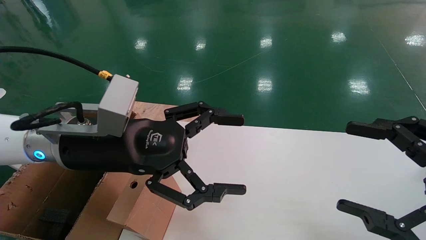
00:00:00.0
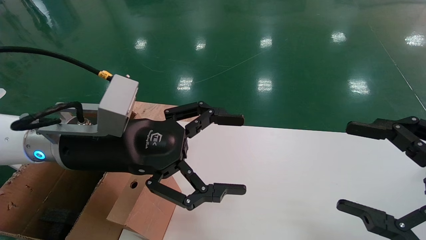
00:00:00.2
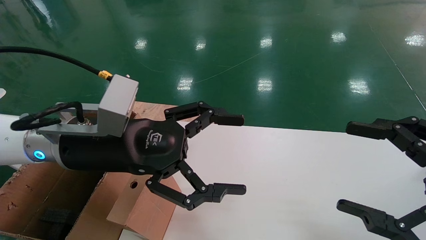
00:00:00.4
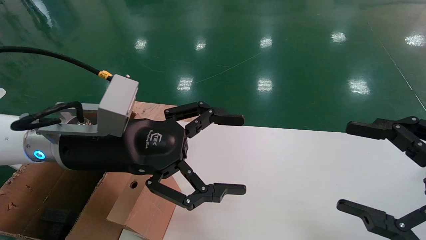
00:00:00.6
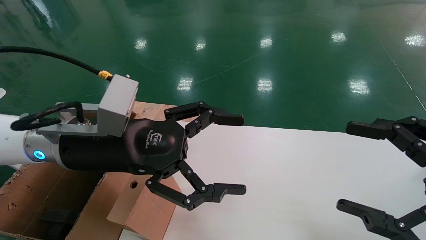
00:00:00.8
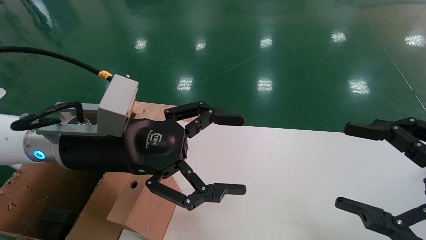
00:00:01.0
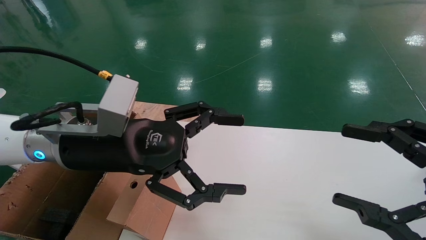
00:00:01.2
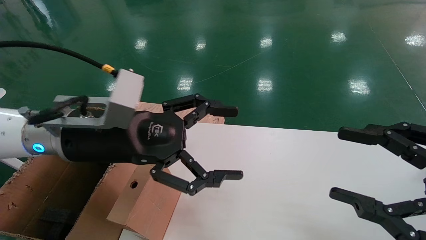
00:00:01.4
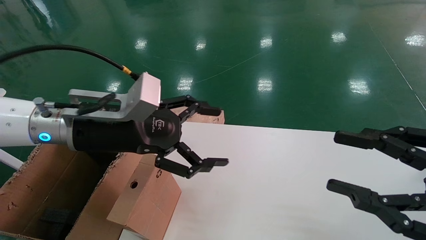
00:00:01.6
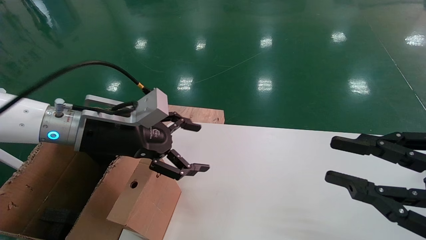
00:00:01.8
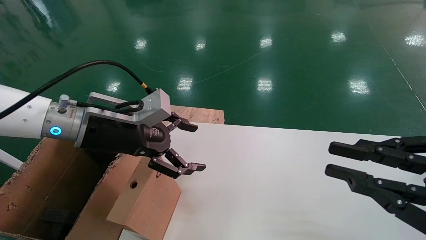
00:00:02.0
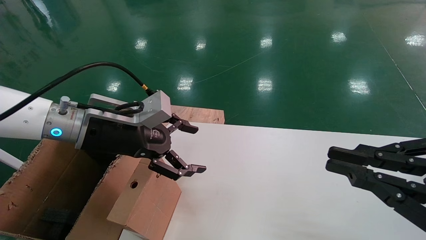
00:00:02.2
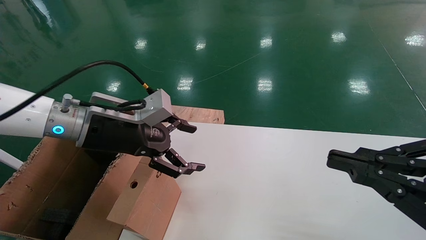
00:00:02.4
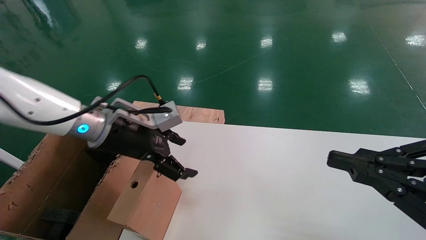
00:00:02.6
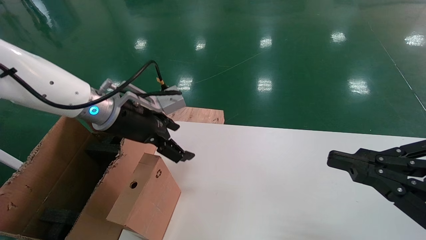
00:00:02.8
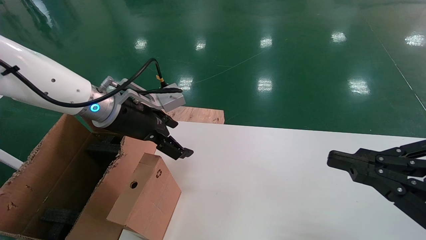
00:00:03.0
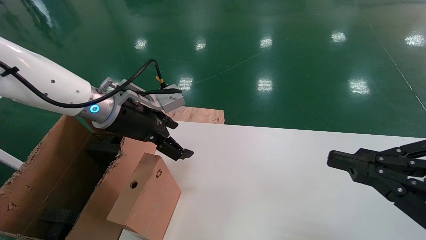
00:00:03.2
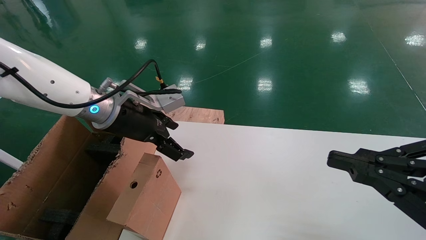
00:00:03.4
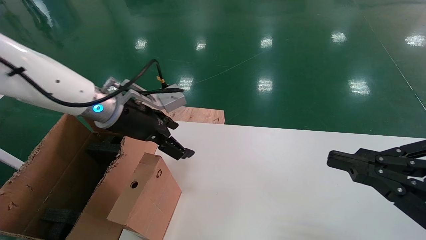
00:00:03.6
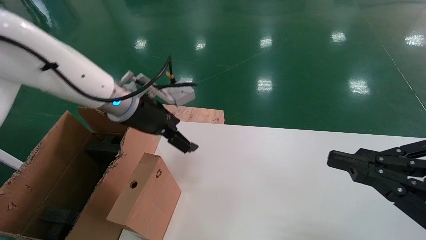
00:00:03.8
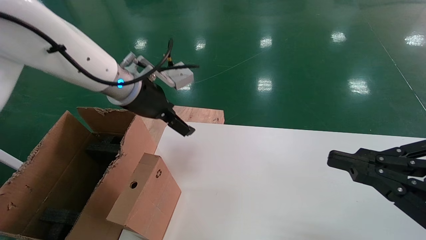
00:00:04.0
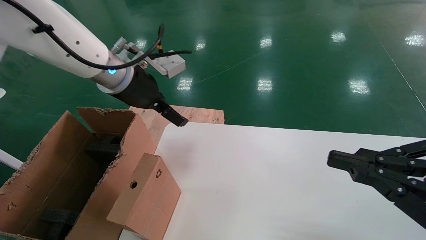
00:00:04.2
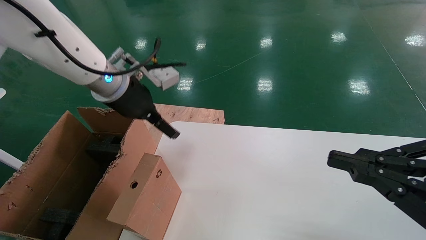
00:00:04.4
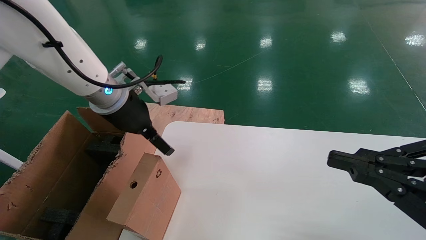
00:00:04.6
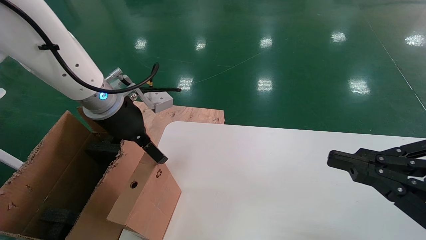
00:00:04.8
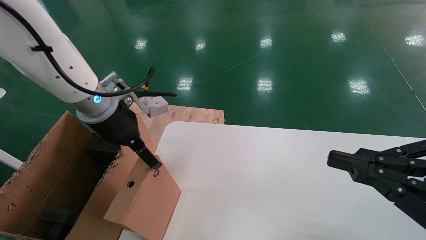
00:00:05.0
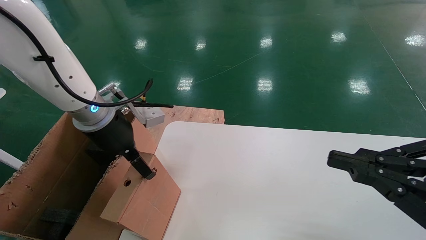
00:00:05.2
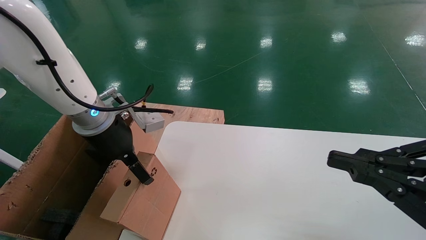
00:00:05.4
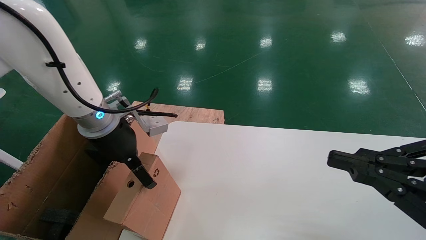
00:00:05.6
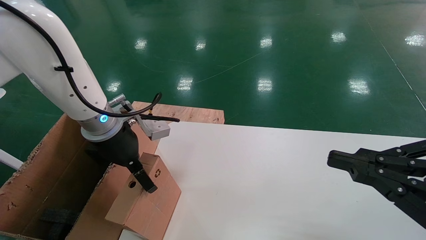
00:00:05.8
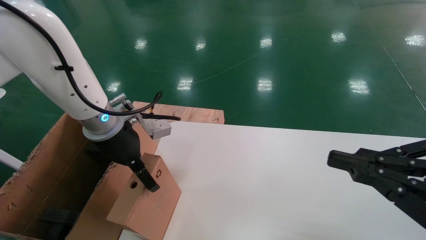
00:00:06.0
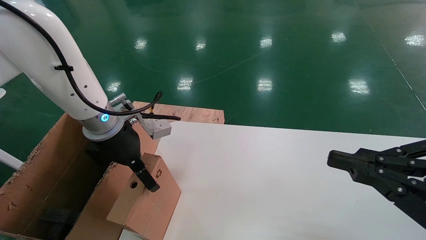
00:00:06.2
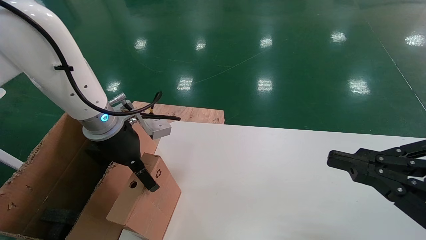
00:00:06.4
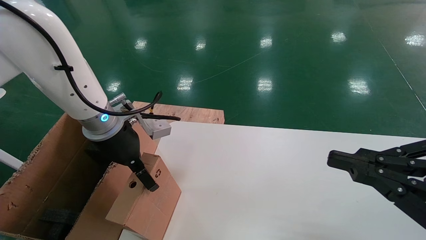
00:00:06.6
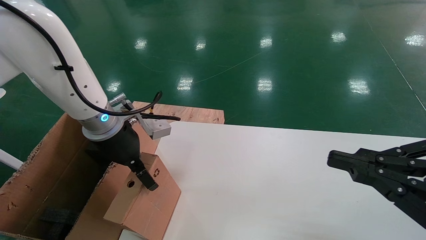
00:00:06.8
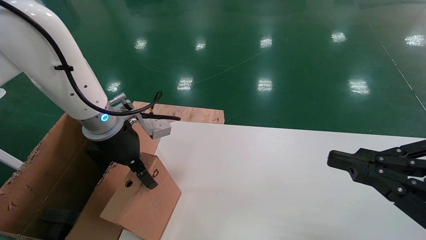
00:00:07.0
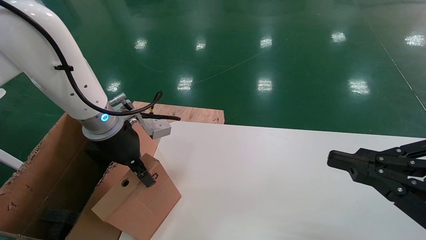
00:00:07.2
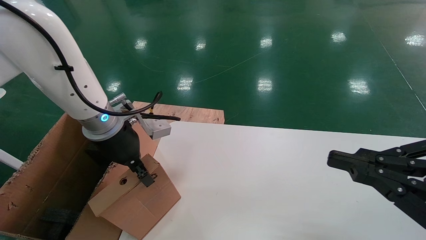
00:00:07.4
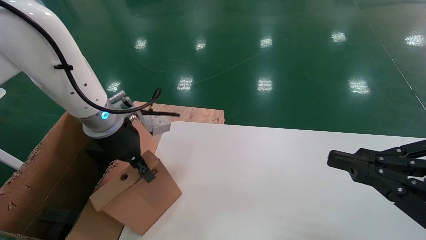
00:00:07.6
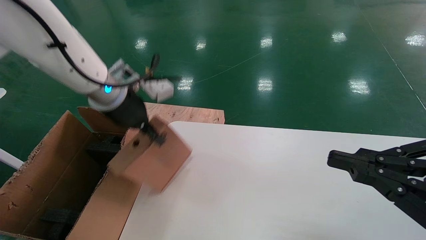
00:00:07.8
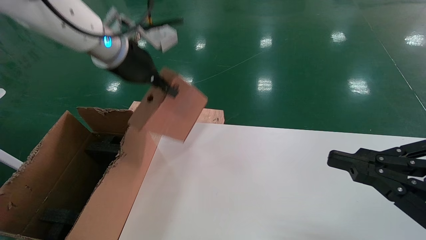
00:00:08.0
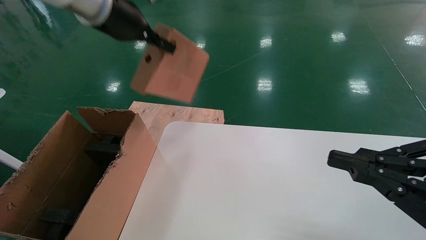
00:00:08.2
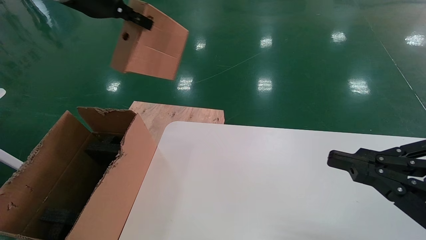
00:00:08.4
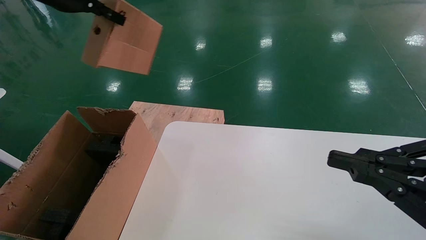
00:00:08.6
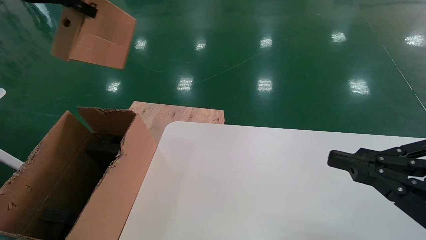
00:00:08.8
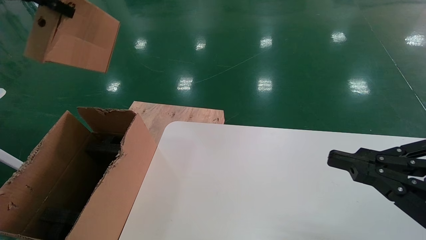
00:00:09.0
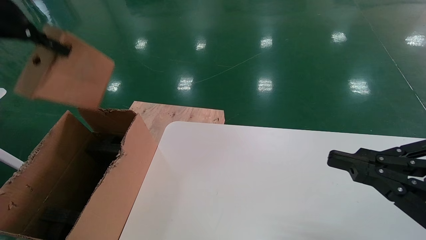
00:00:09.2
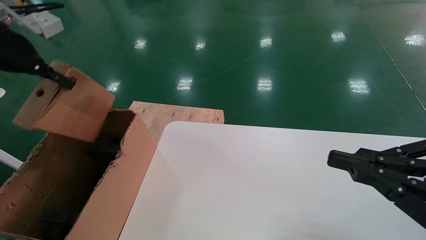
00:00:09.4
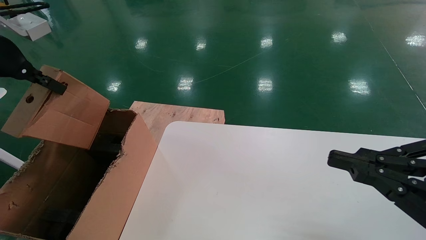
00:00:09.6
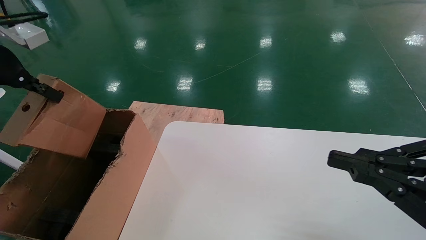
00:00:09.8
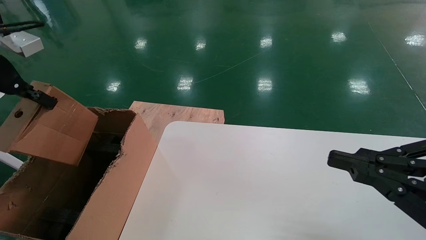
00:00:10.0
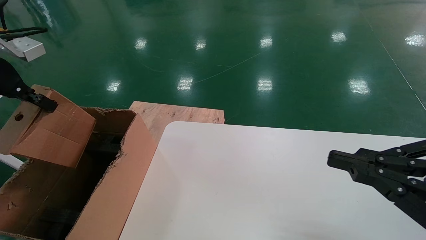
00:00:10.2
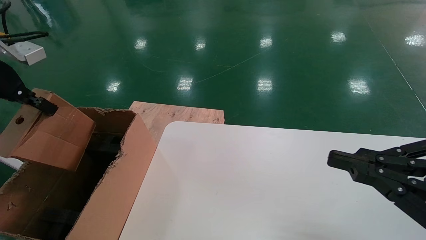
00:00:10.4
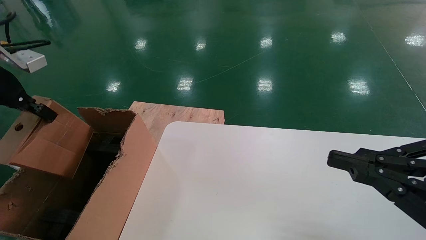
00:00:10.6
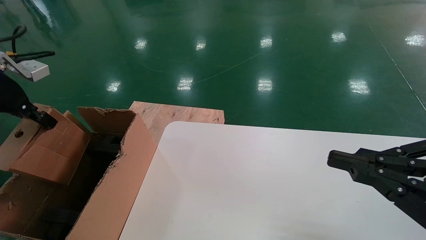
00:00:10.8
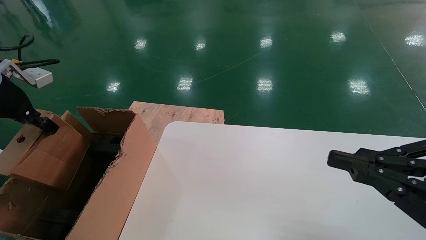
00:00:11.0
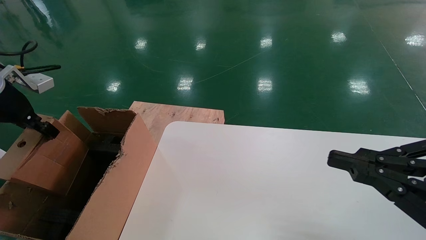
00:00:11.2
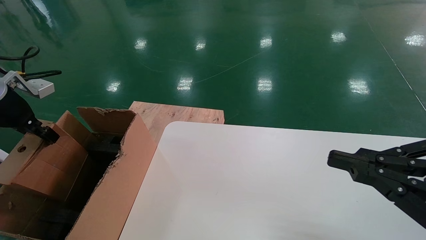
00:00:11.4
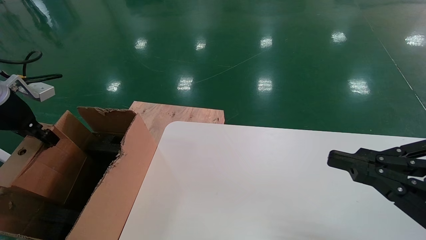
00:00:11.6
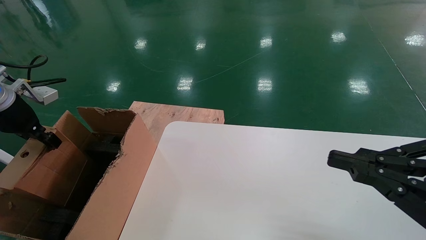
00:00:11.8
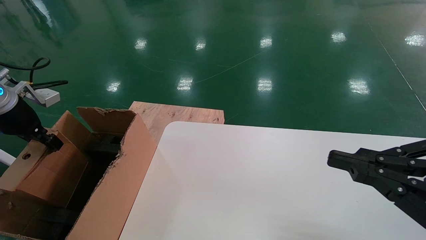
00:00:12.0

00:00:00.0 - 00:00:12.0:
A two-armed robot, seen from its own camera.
Task of the whole recording: place the small box on the table into the large box on the left.
Step, 00:00:01.8 - 00:00:07.6: Pick up the mouse and the power cord paper box.
00:00:00.0 - 00:00:01.6: The right gripper closes its fingers.
00:00:01.6 - 00:00:03.0: The left gripper shifts some 5 cm forward. The right gripper closes up.
00:00:04.4 - 00:00:06.0: The left gripper travels downward by some 5 cm.
00:00:06.0 - 00:00:07.6: The left gripper closes its fingers.
00:00:07.6 - 00:00:09.0: The left gripper moves upward and to the left, about 25 cm.
00:00:09.0 - 00:00:10.4: The left gripper heads downward and to the left, covering approximately 15 cm.
00:00:10.4 - 00:00:12.0: The left gripper goes roughly 10 cm downward.

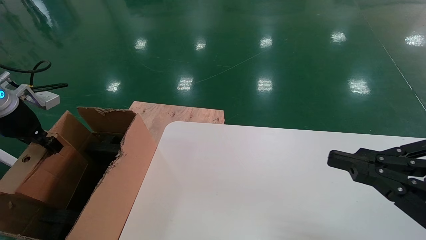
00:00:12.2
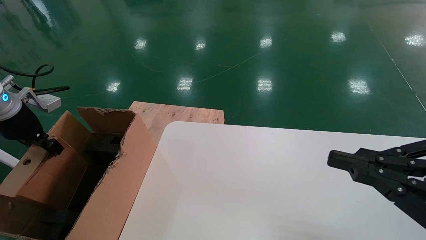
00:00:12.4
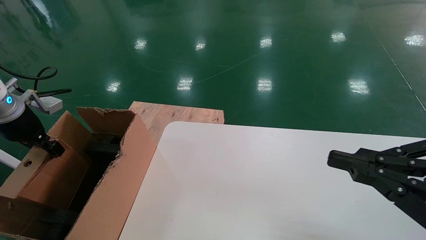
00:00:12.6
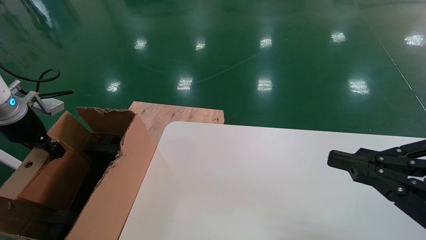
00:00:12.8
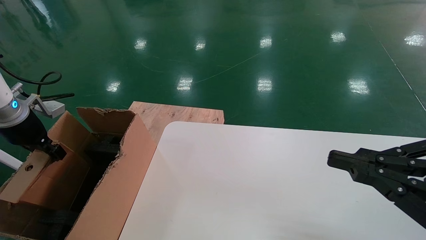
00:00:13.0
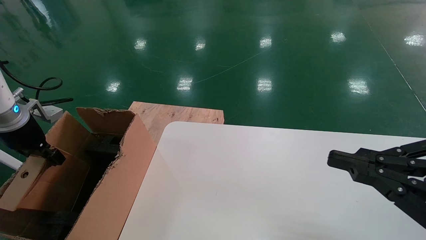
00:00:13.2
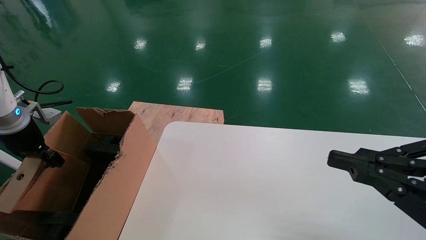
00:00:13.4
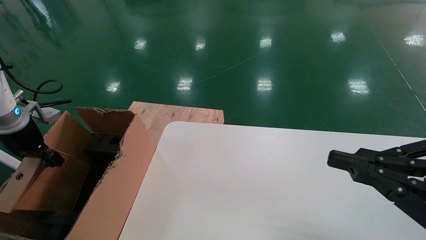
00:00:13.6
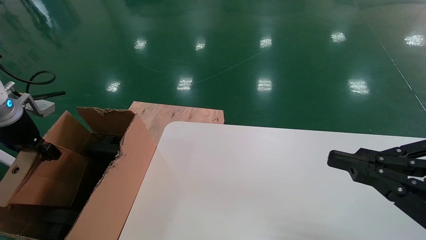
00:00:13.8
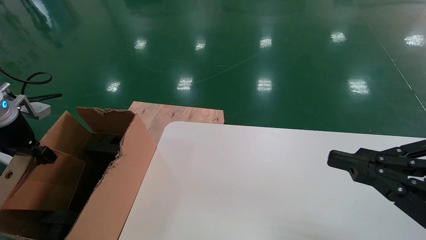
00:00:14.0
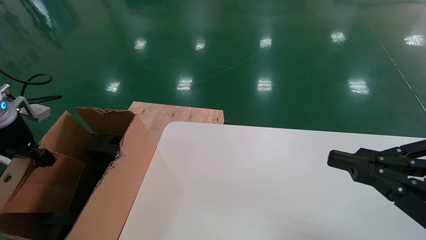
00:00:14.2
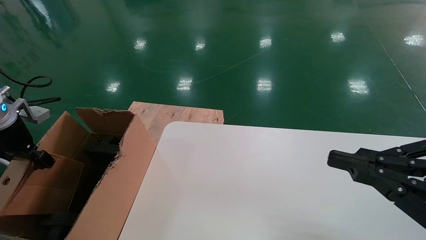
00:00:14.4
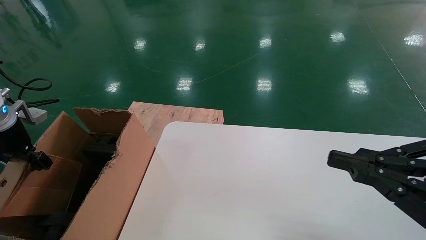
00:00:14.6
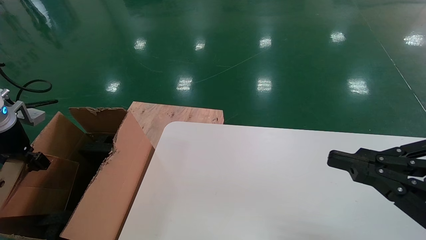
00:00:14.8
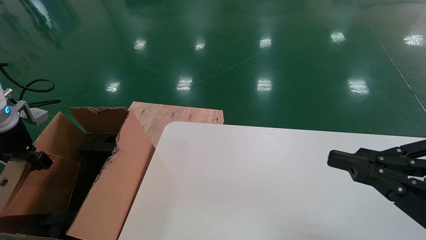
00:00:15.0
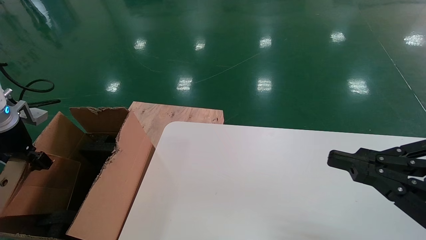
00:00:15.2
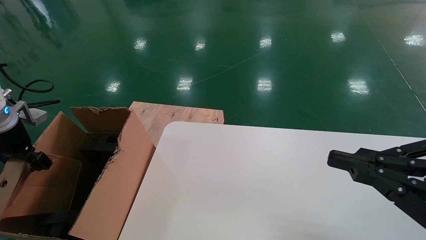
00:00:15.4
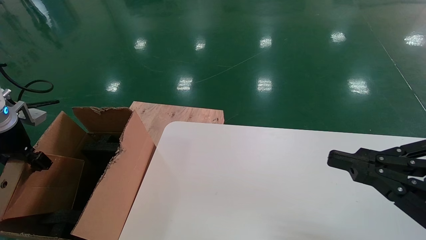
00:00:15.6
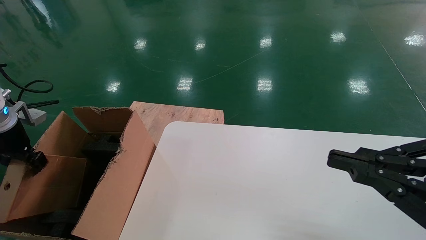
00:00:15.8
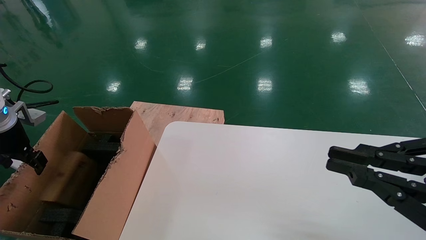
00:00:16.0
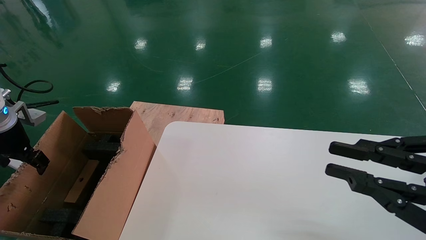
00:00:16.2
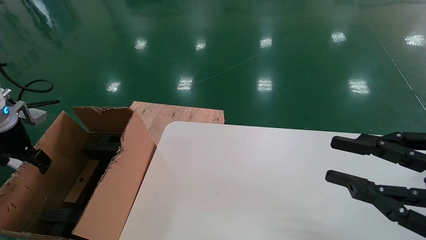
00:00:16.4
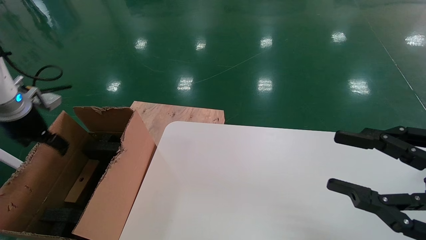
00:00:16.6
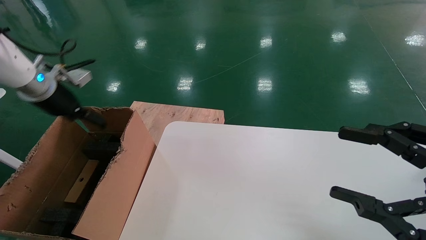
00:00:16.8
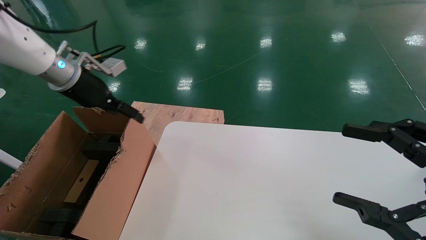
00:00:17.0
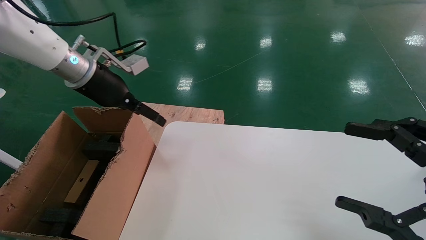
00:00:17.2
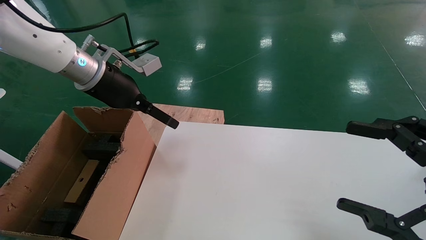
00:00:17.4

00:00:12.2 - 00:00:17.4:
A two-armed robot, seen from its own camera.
Task of the whole recording: place the small box on the table into the large box on the left.
Step, 00:00:12.2 - 00:00:16.2: Place the mouse and the power cord paper box into the container.
00:00:12.2 - 00:00:14.0: The grippers move only a little.
00:00:14.0 - 00:00:15.6: Neither gripper changes place.
00:00:15.6 - 00:00:17.4: The left gripper travels to the right and upward by some 25 cm, and opens up. The right gripper opens its fingers.
